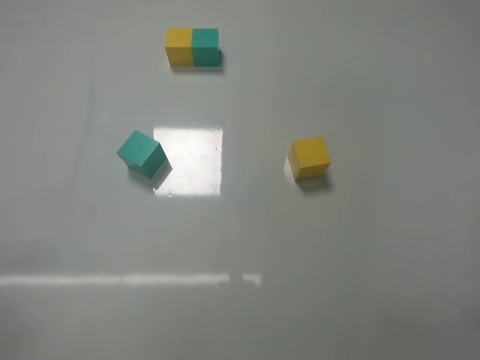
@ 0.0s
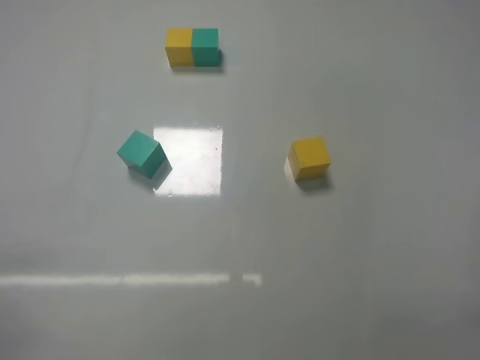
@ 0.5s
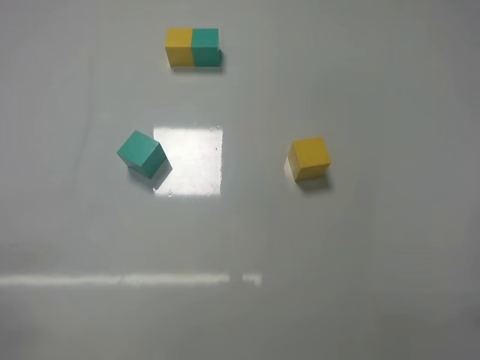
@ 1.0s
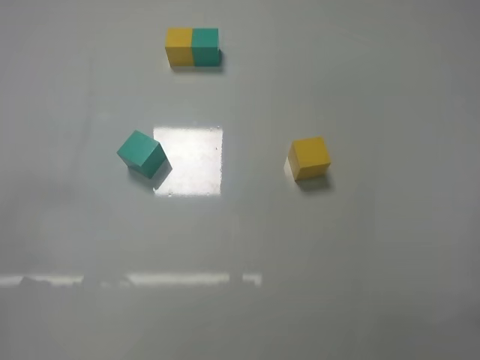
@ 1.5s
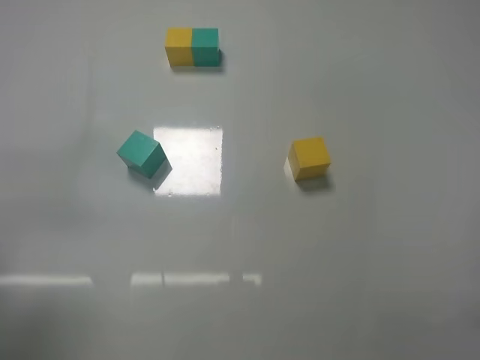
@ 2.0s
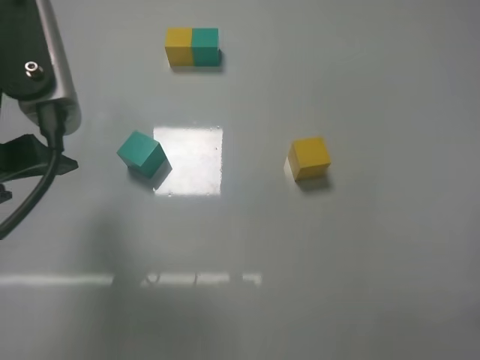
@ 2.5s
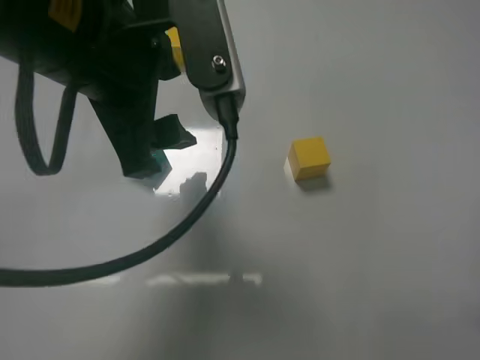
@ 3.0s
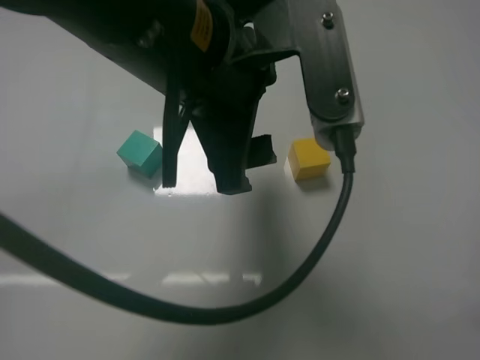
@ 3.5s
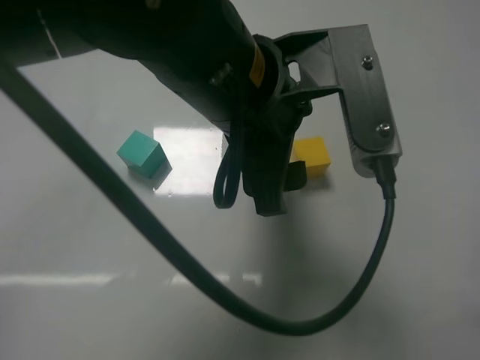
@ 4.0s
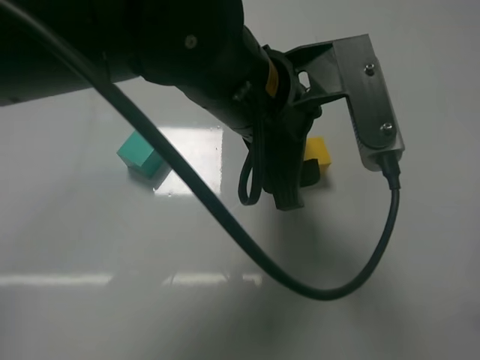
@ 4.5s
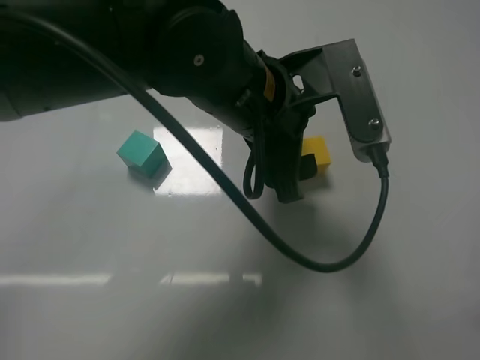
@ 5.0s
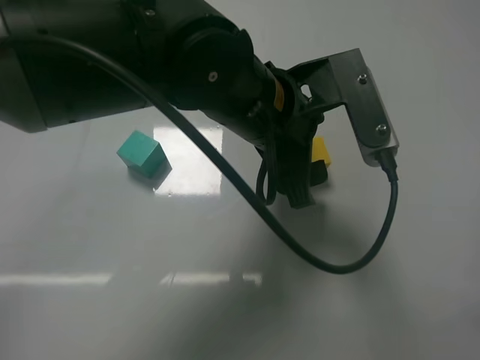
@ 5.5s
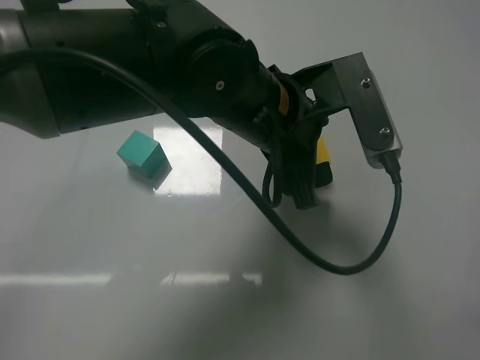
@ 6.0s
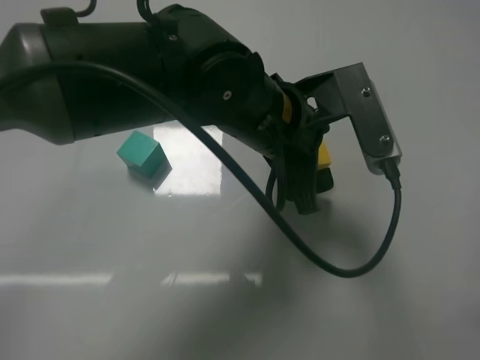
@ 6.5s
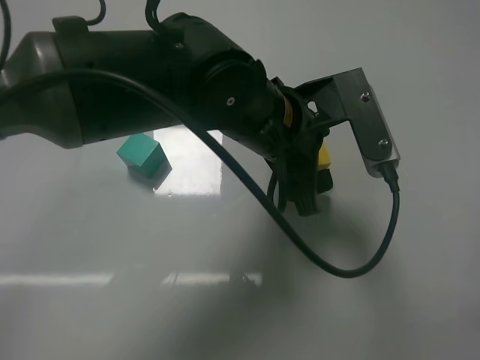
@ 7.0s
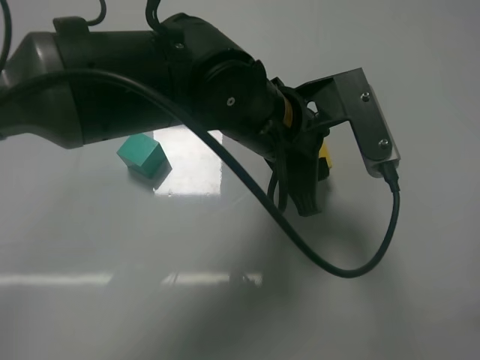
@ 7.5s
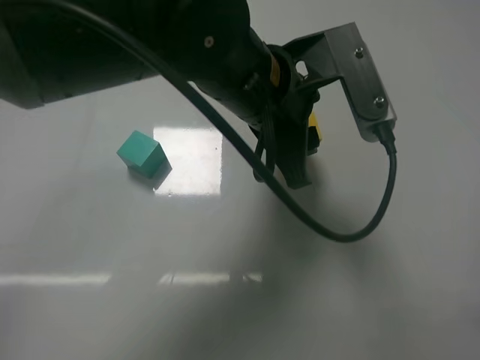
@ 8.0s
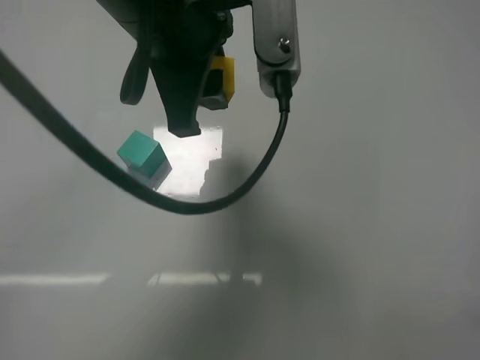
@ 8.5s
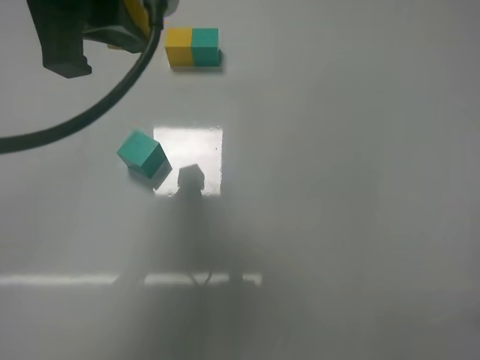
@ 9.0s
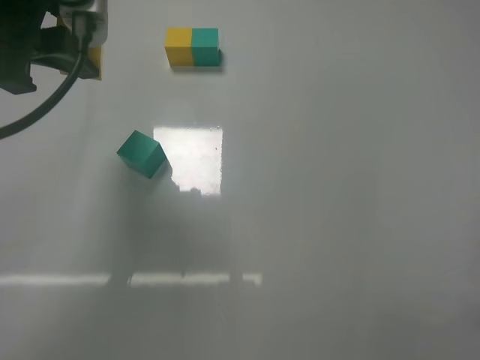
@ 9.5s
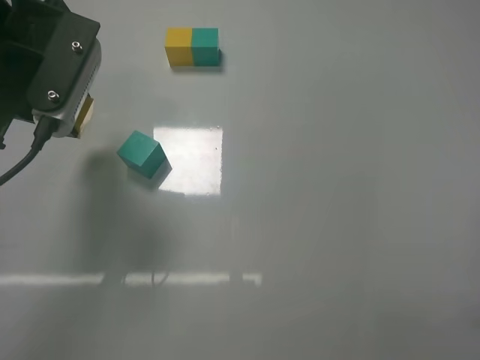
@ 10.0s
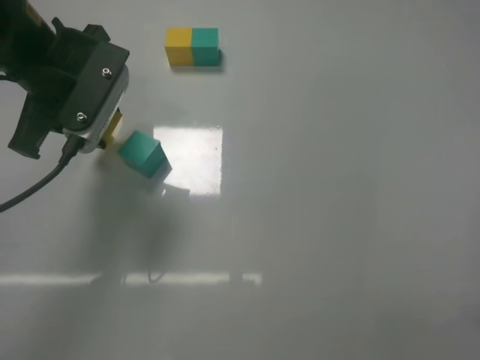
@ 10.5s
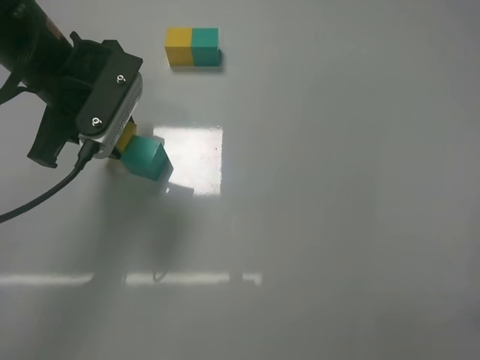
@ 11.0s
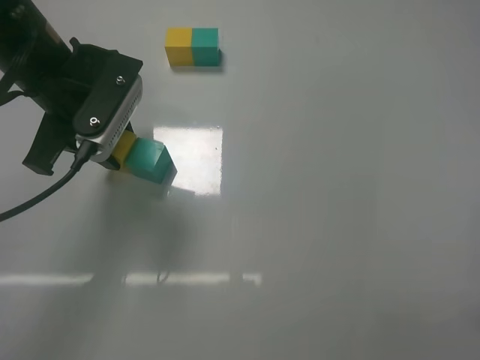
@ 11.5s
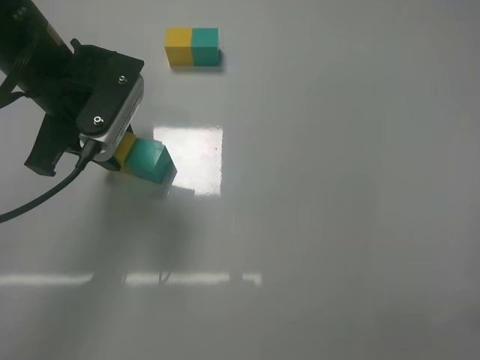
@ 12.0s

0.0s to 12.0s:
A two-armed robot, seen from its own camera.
Task of the whole recording: According to the building block template in front, assemble the scattered blocks together.
Step, 0.0s to 7.0s: Grasp the yellow block with left gripper.
0.0s to 2.0s: The left gripper travels forward and upward by approximately 20 cm.
2.0s to 4.0s: The left gripper shifts about 30 cm to the right.
4.0s to 6.0s: The left gripper shifts roughly 5 cm forward.
6.0s to 8.0s: The left gripper closes up.
8.0s to 10.0s: The left gripper shifts some 20 cm to the left.
10.0s to 12.0s: The left gripper changes place by roughly 5 cm.

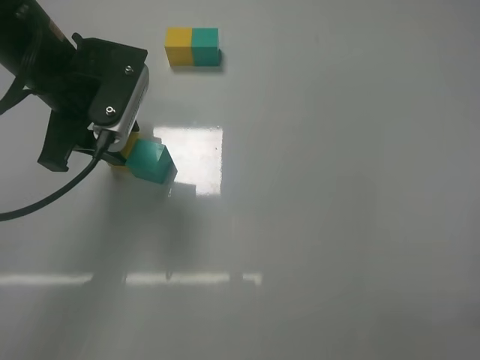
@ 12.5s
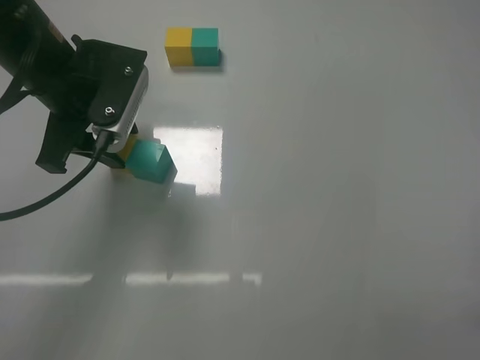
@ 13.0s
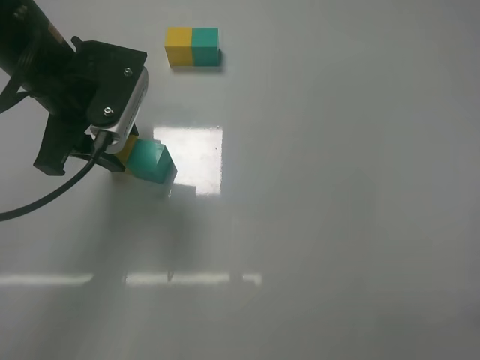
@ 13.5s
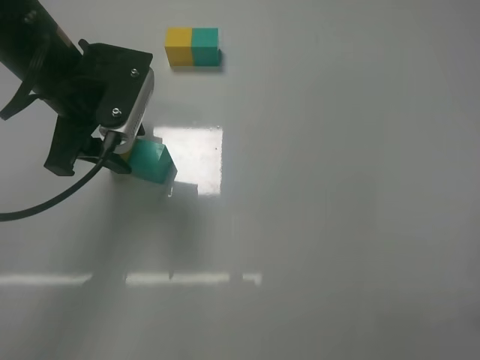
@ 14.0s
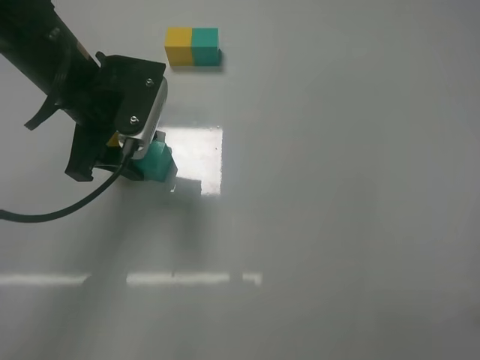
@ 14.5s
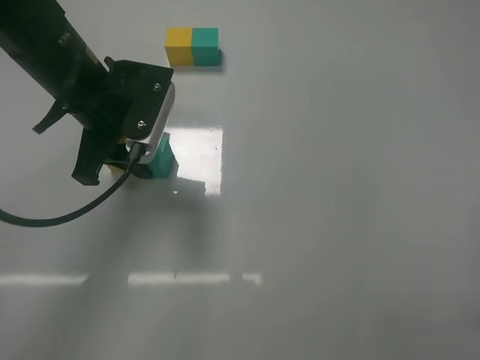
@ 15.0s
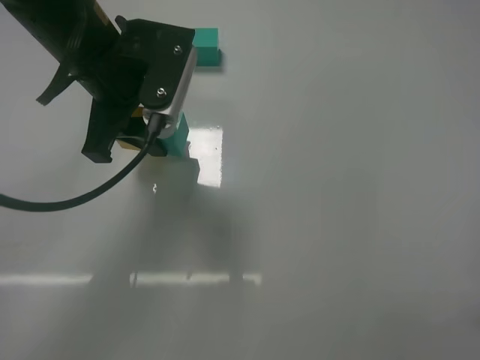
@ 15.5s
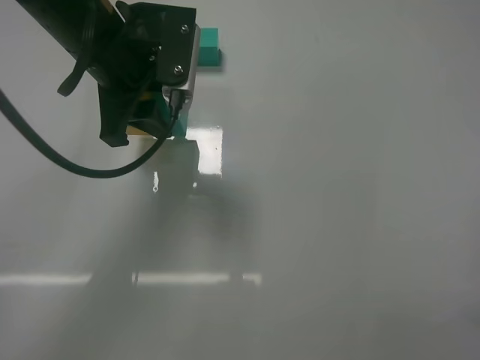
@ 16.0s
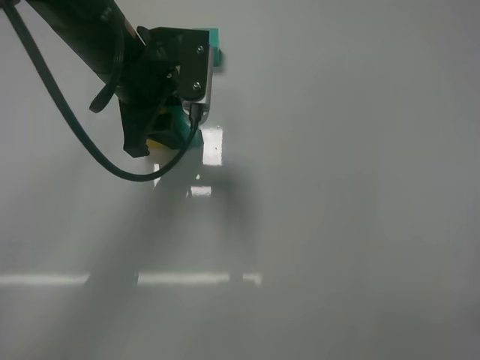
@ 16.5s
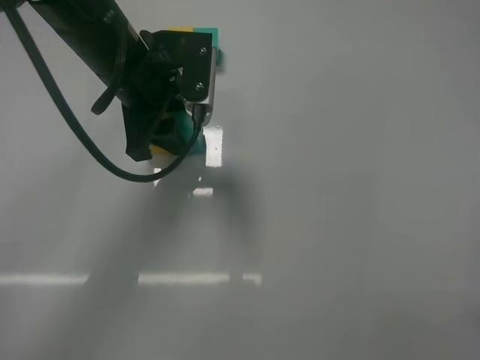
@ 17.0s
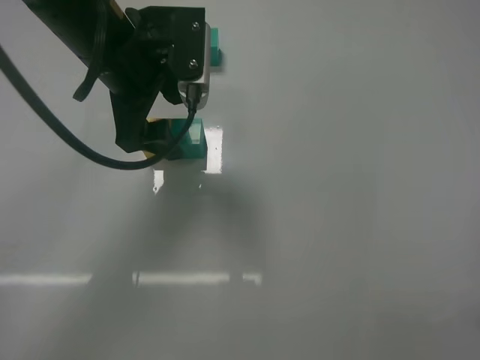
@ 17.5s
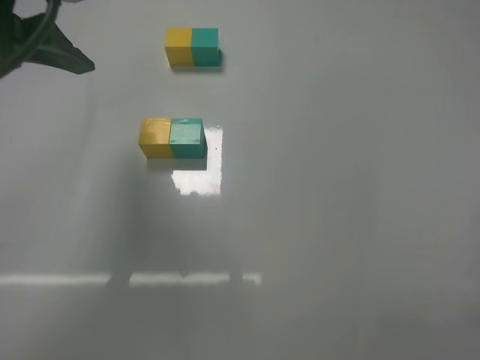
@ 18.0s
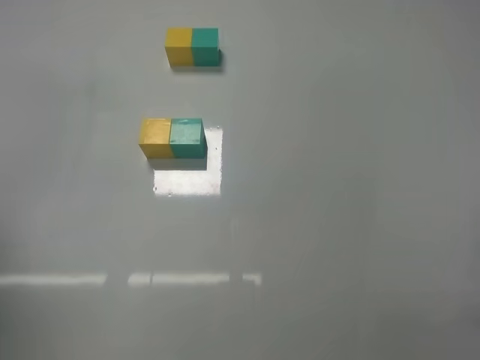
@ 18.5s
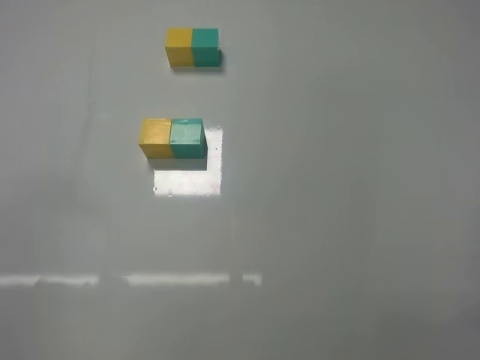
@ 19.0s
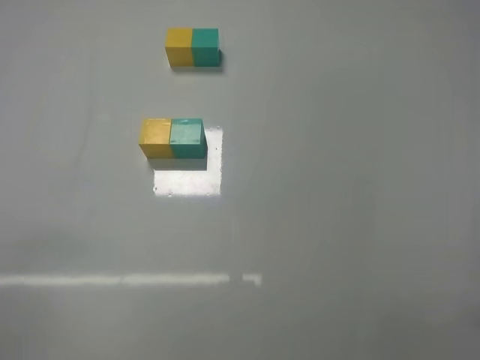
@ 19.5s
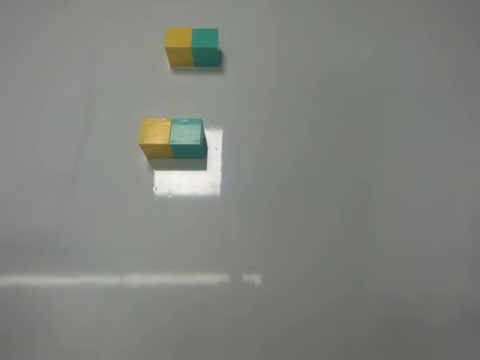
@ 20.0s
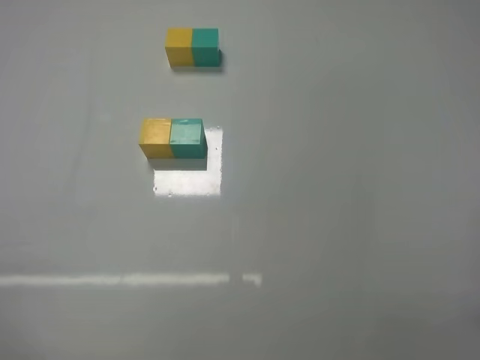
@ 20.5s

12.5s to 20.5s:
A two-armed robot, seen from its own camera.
Task of the whole recording: According to the building block template in front, assemble the scattered blocks together.
Step, 14.5s to 17.5s: Put the yellow cube and green cube in the center of the table with the left gripper.
12.5s to 14.5s: The grippers make only small movements.
14.5s to 16.5s: The left gripper closes.
16.5s to 18.5s: The left gripper is displaced backward, to the left and upward by some 30 cm, and opens.
18.5s to 20.5s: The left gripper goes some 25 cm downward and backward.
